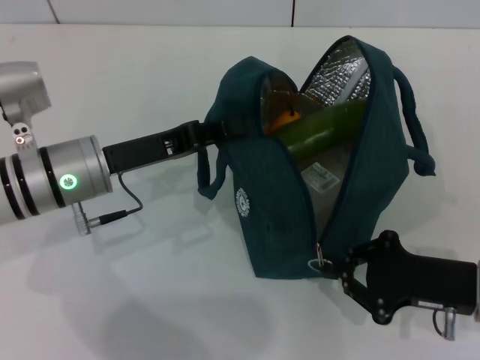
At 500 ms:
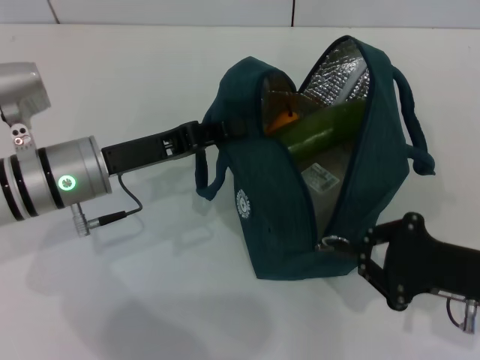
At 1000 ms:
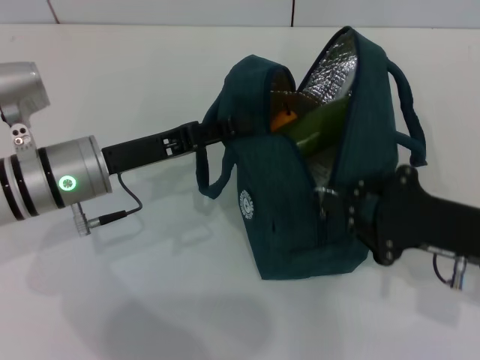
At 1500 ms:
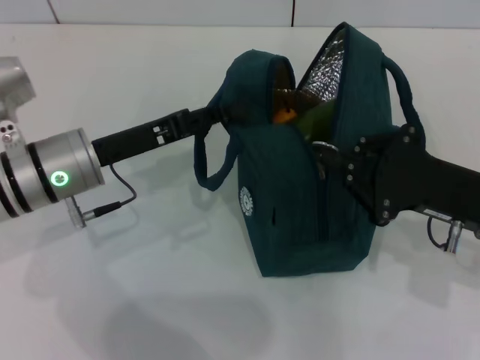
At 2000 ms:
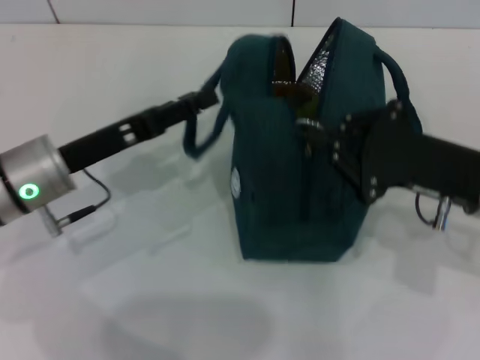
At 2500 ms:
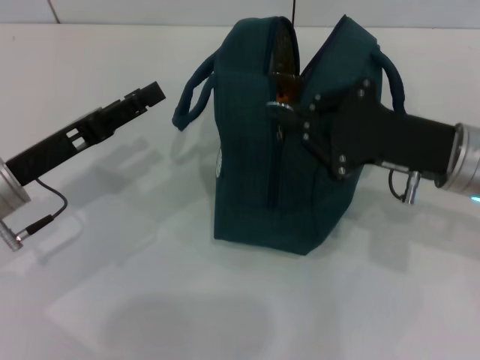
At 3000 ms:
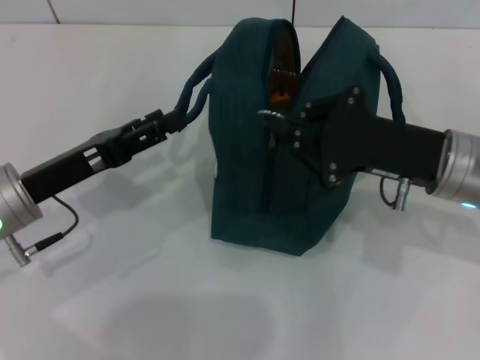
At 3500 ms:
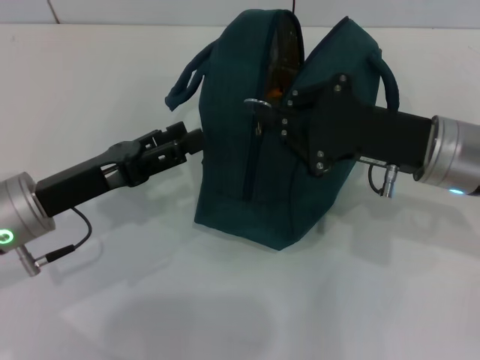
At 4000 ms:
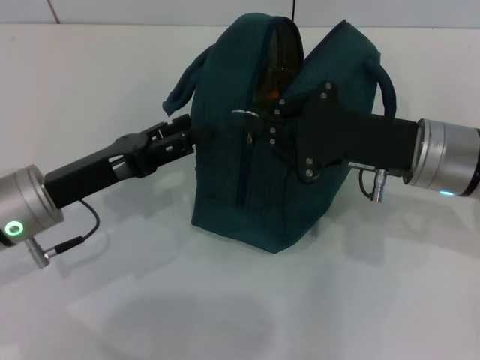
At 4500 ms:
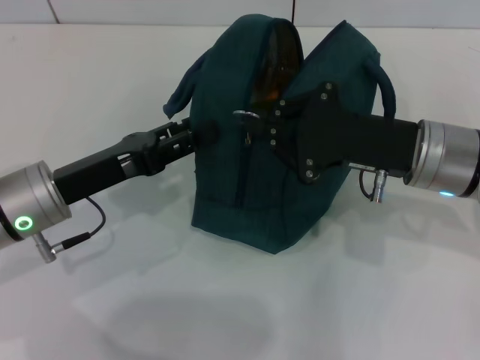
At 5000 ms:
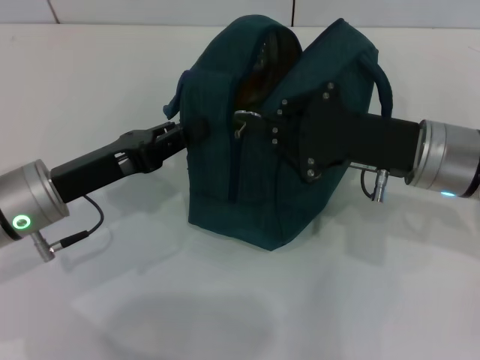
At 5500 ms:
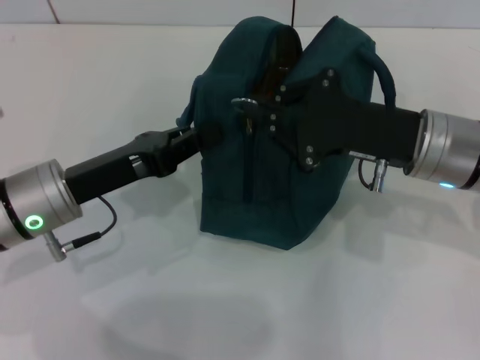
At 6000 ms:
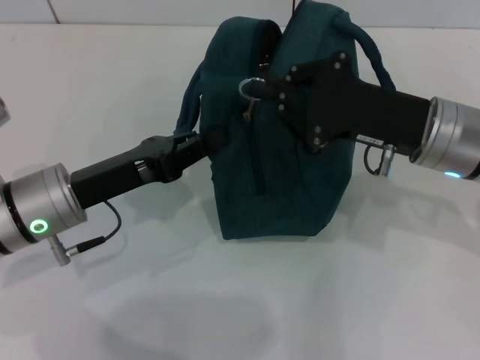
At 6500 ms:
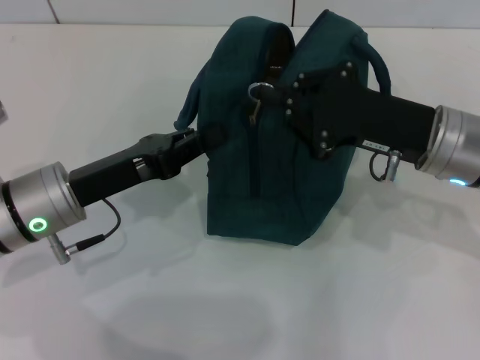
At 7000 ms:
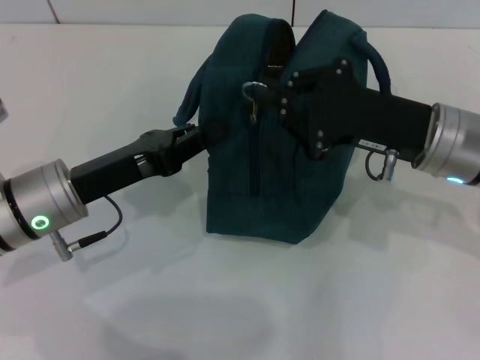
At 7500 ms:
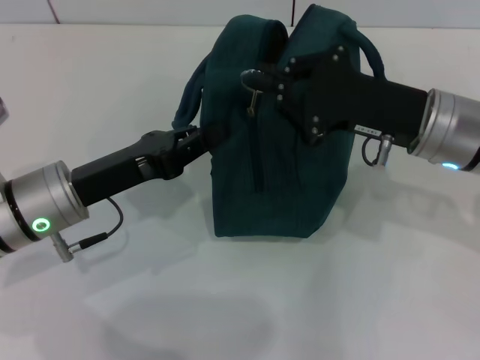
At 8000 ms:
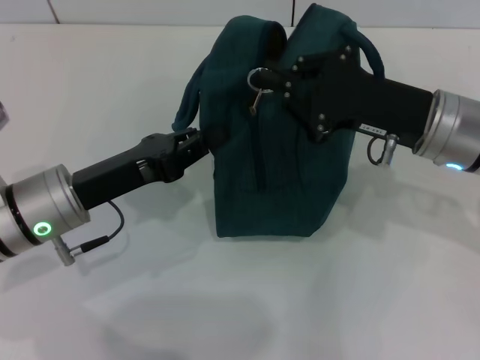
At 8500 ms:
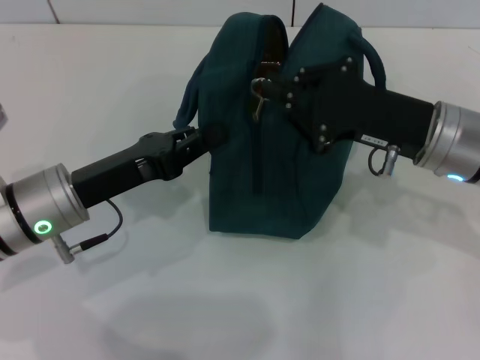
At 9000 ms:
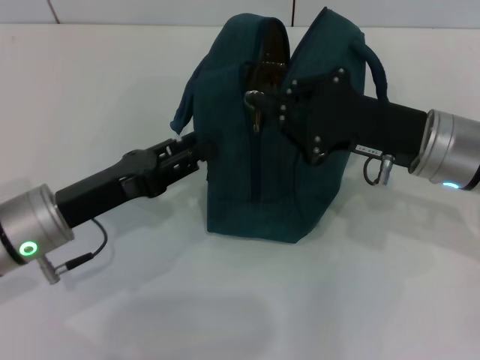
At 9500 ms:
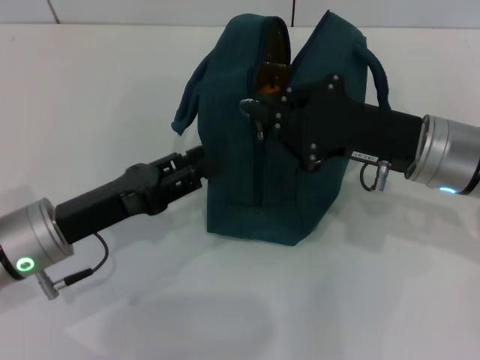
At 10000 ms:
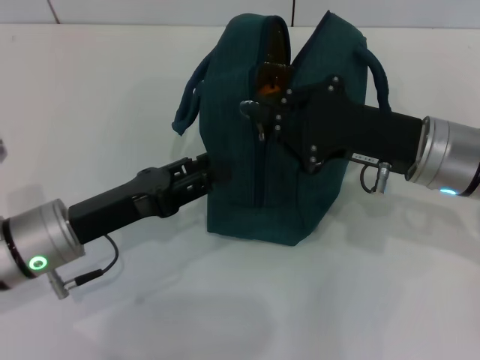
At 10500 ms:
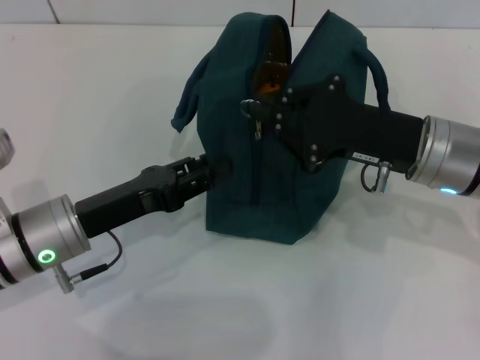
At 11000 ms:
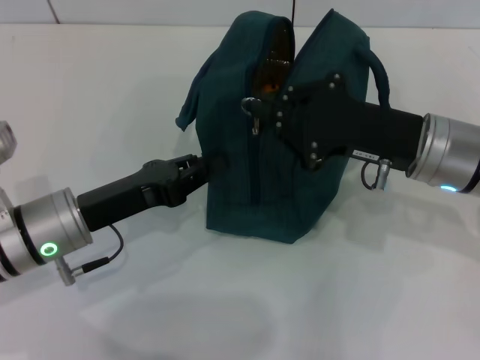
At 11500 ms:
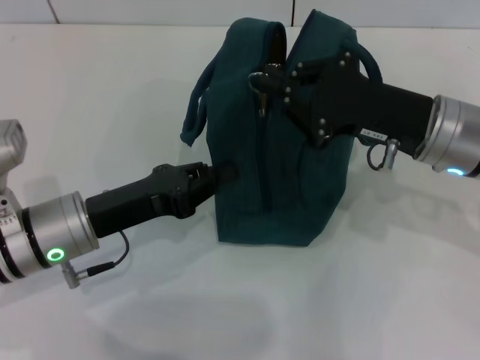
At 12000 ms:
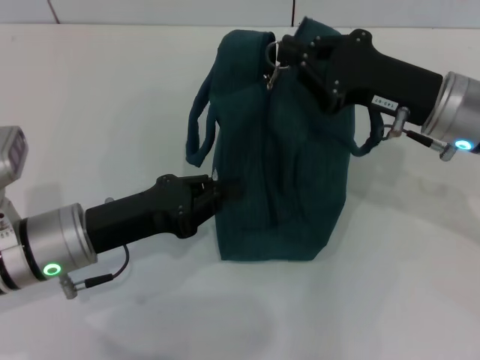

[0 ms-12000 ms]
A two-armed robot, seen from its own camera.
0 ms to 2000 ms: The left gripper opens up. Meanwhile the right gripper shifts about 5 cm upward.
2000 ms to 4000 ms: The right gripper goes approximately 5 cm to the left.
4000 ms to 6000 ms: The left gripper closes up.
6000 ms to 8000 ms: The two grippers keep their place.
8000 ms to 10000 ms: The left gripper opens.
10000 ms to 12000 ms: The left gripper closes.

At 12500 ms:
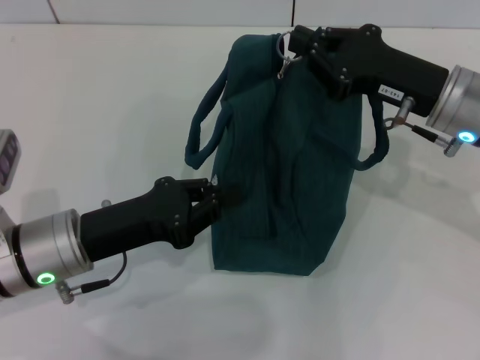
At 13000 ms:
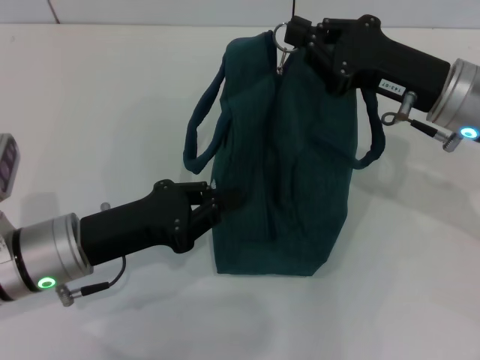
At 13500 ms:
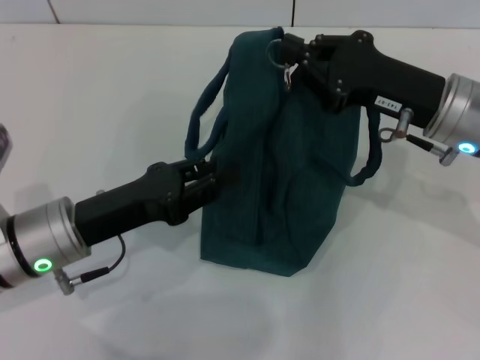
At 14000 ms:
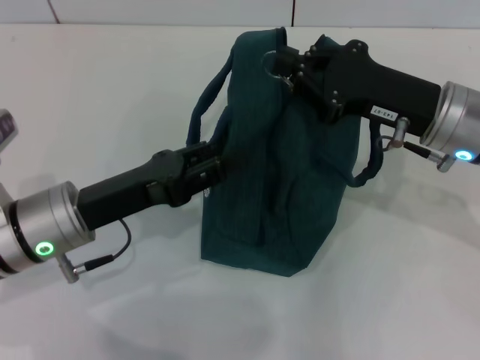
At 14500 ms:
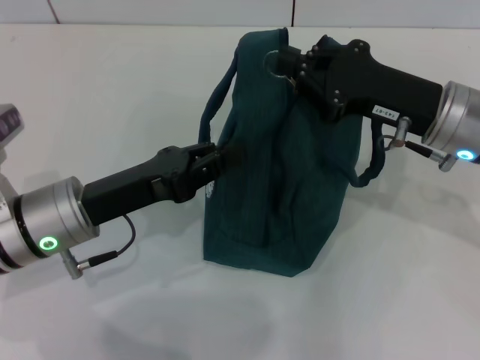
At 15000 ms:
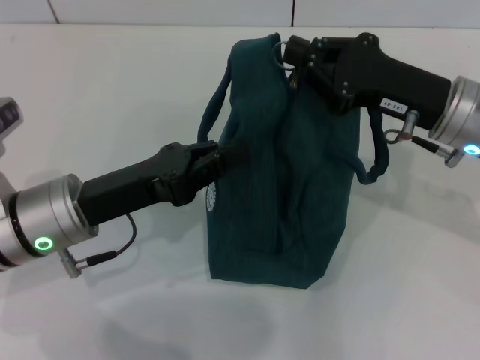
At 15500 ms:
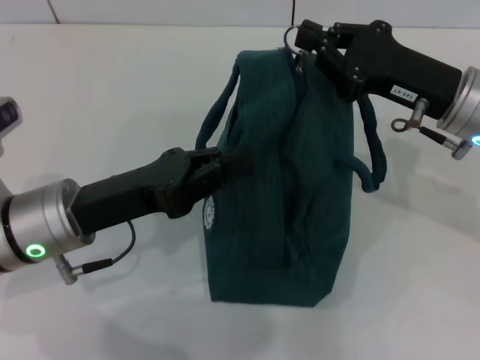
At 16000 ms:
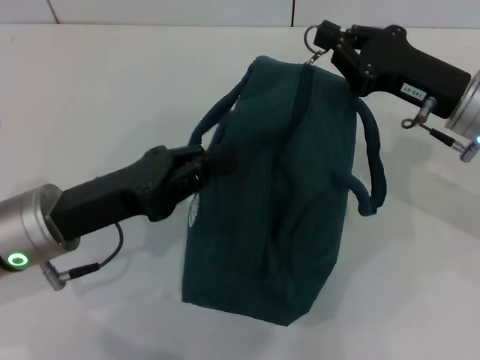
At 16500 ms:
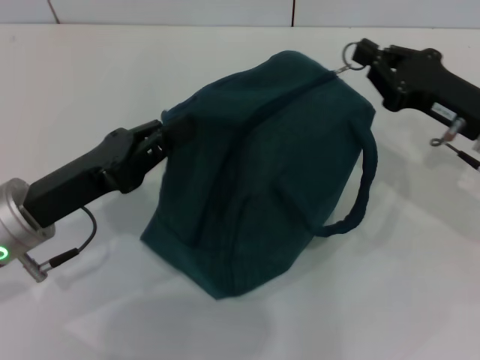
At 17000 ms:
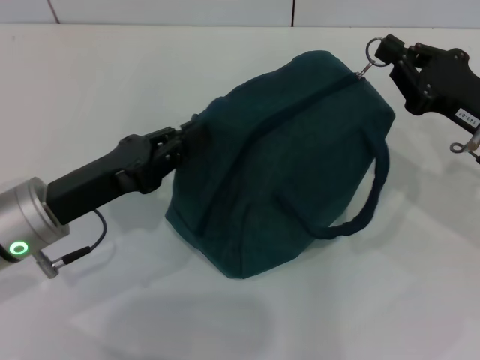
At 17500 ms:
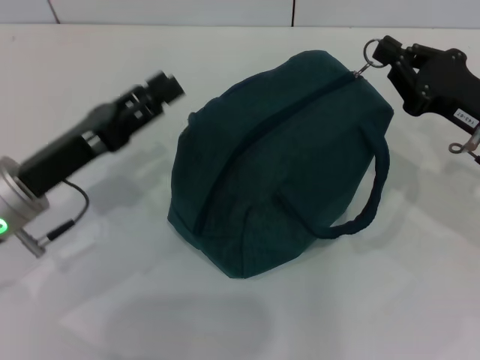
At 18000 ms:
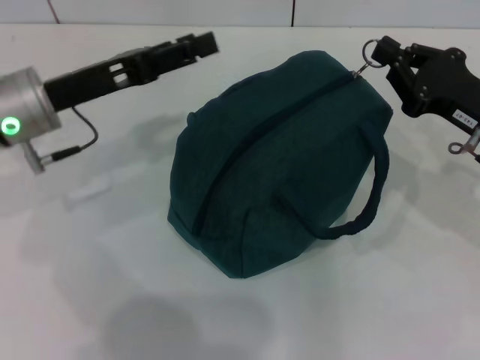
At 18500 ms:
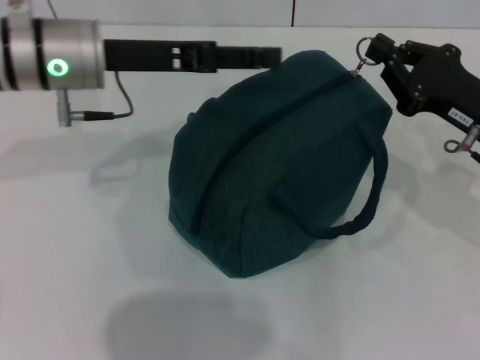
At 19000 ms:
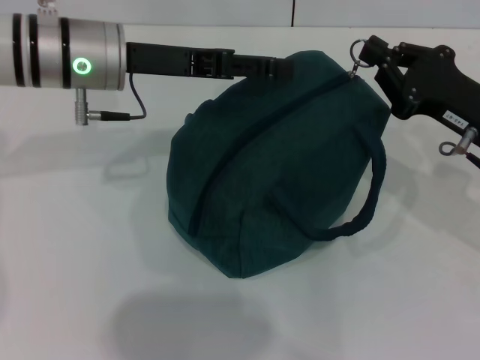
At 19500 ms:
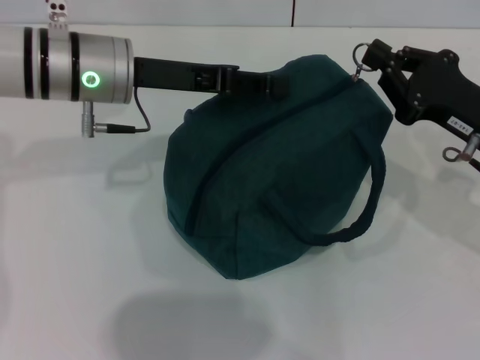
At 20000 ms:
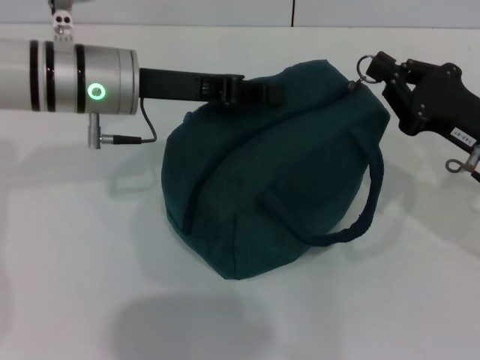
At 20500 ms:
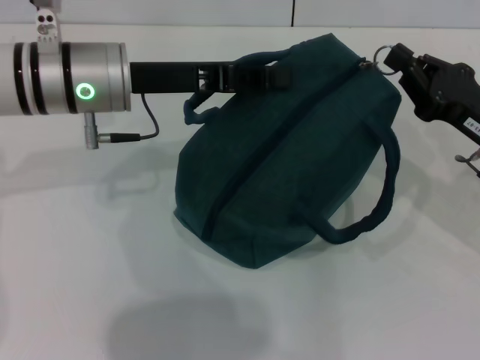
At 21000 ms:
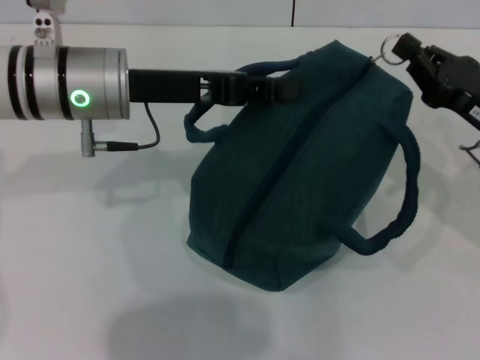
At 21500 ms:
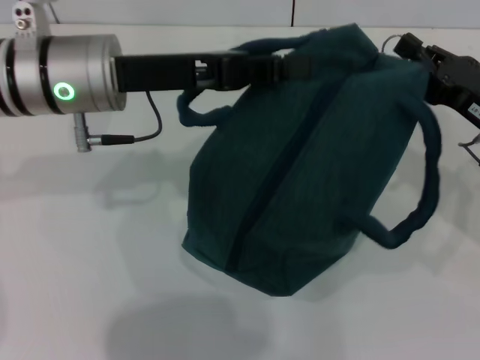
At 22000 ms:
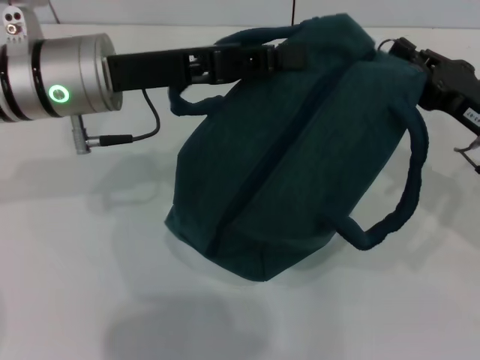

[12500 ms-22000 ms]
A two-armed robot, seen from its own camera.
14500 ms to 16500 ms: The right gripper shifts approximately 5 cm to the right.
16500 ms to 18000 ms: The left gripper heads forward, covering approximately 10 cm, and opens.
18000 ms to 20000 ms: The left gripper is displaced to the right by roughly 5 cm, and closes up.

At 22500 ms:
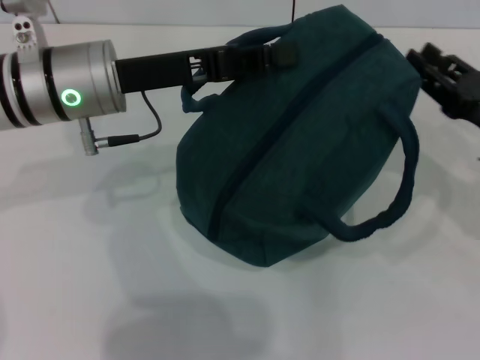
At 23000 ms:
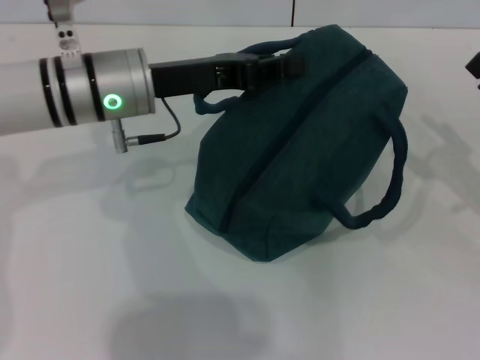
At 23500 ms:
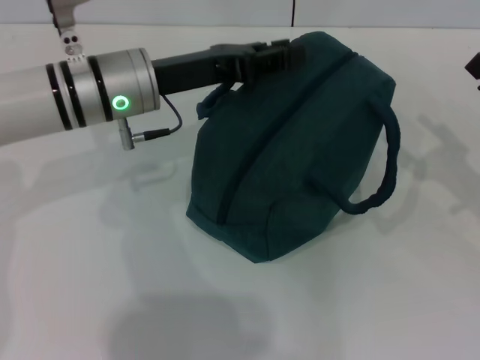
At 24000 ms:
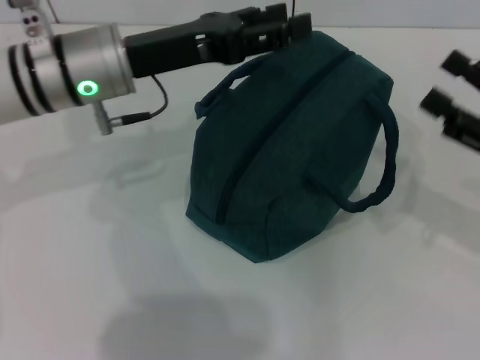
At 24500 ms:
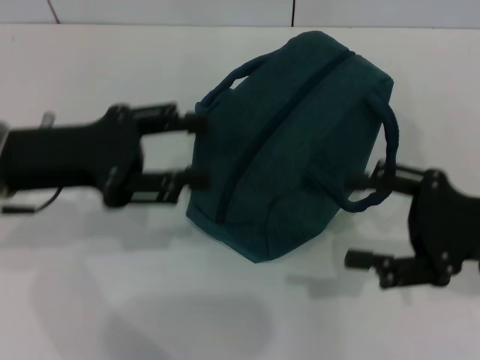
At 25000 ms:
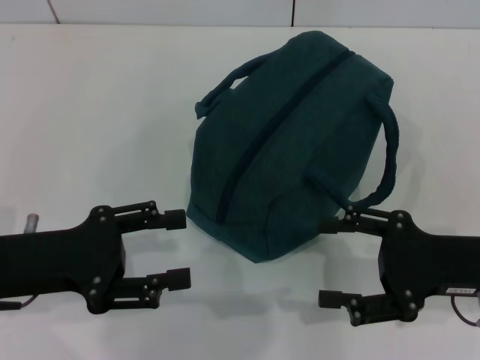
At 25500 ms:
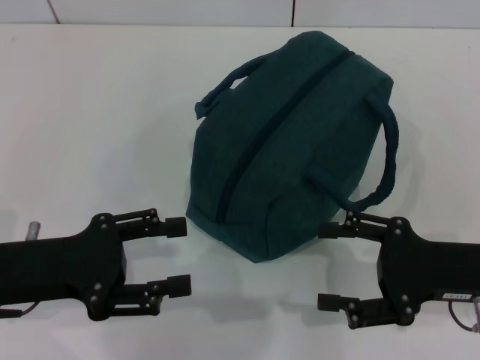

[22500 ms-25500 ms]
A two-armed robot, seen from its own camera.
Step, 22500 ms to 23500 ms: Hold the lunch bag with your left hand.
22500 ms to 24000 ms: The left gripper opens. Meanwhile the right gripper opens its fingers.
24000 ms to 25500 ms: The right gripper shifts approximately 5 cm to the left; the left gripper travels backward, to the left and downward by approximately 20 cm.
